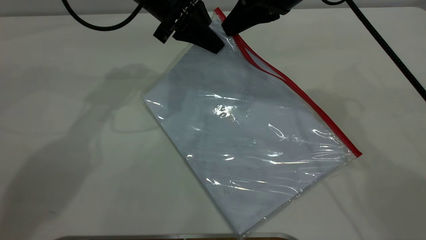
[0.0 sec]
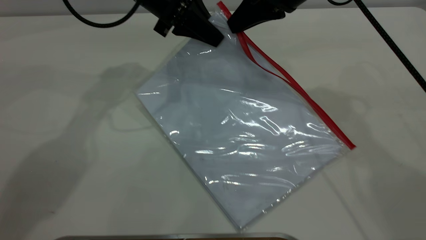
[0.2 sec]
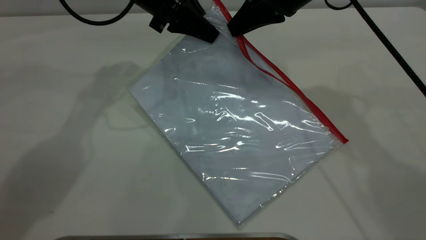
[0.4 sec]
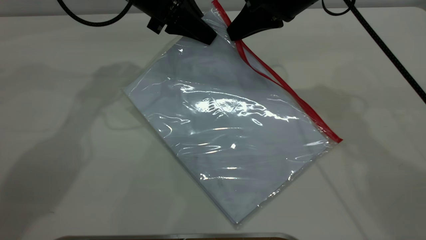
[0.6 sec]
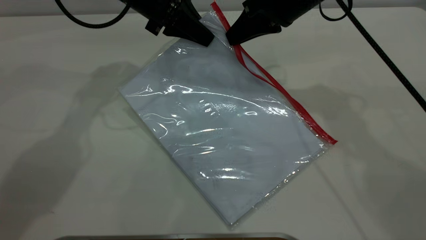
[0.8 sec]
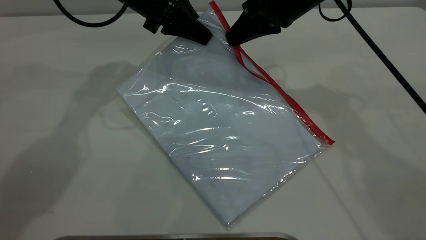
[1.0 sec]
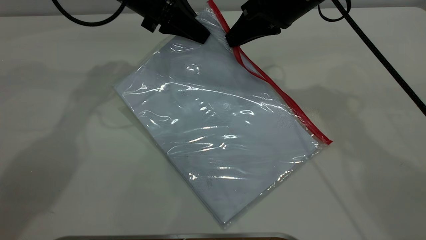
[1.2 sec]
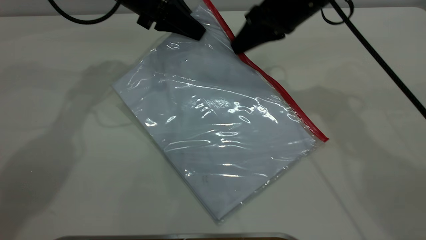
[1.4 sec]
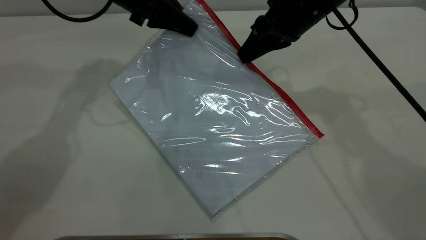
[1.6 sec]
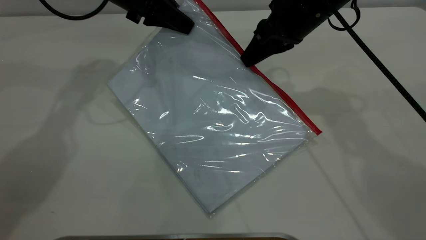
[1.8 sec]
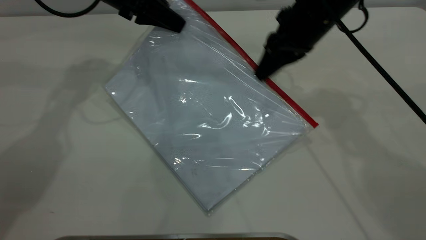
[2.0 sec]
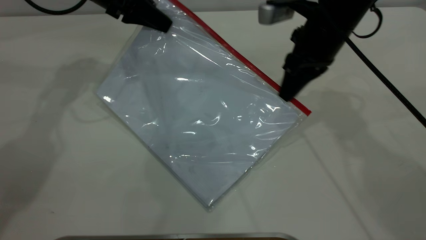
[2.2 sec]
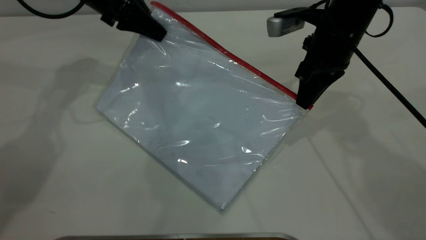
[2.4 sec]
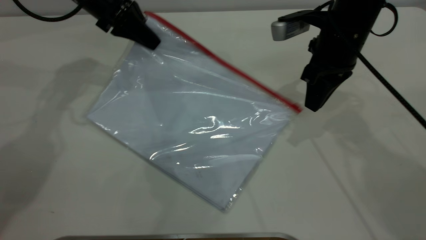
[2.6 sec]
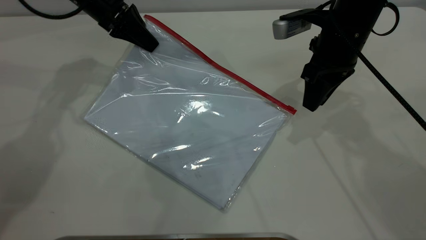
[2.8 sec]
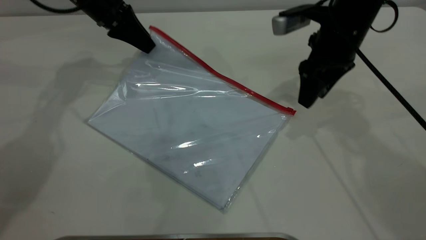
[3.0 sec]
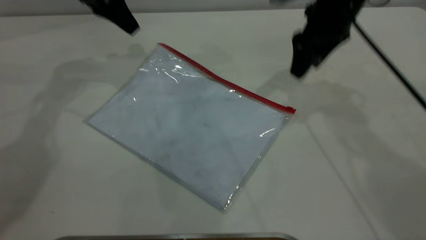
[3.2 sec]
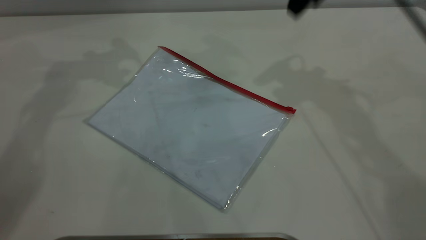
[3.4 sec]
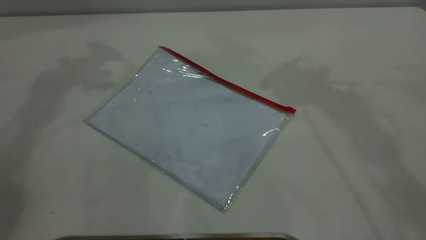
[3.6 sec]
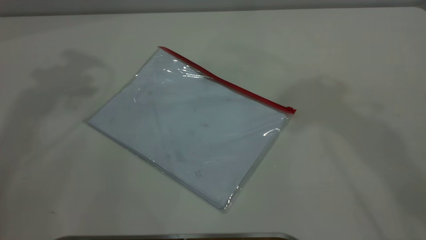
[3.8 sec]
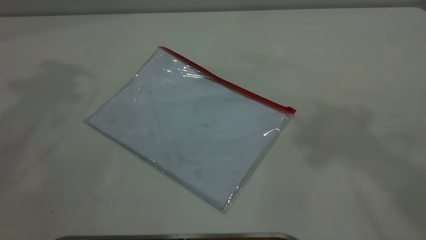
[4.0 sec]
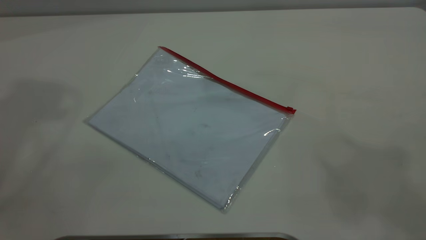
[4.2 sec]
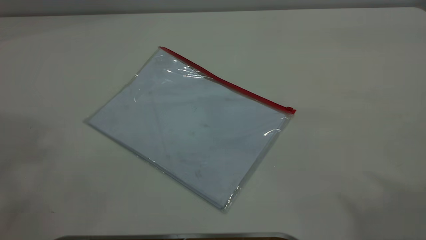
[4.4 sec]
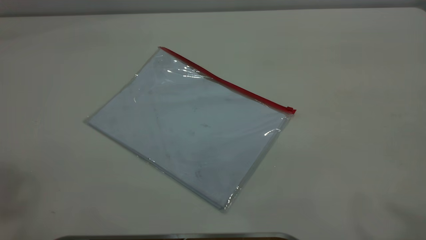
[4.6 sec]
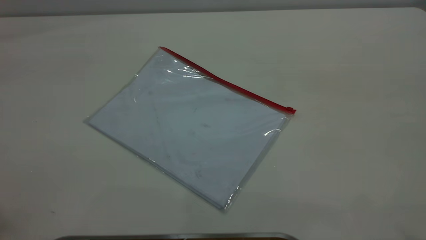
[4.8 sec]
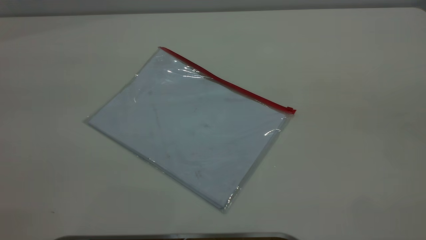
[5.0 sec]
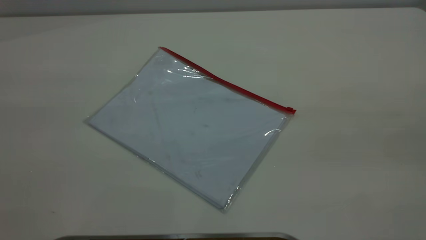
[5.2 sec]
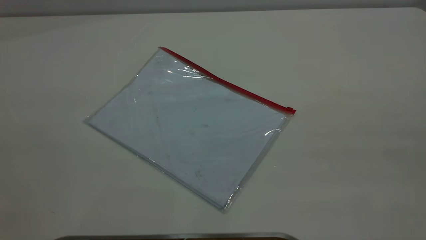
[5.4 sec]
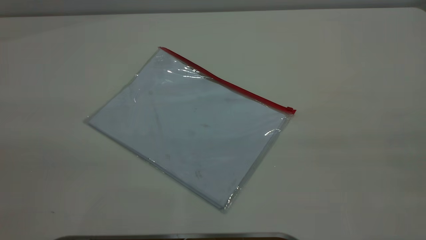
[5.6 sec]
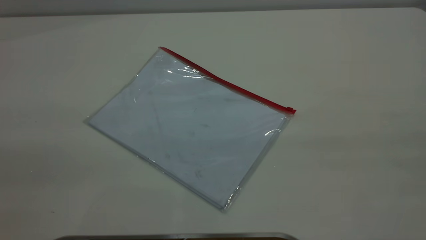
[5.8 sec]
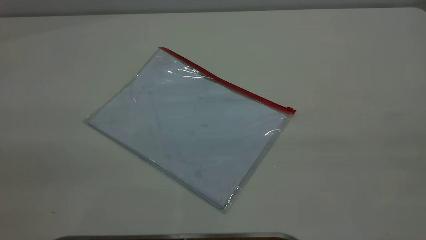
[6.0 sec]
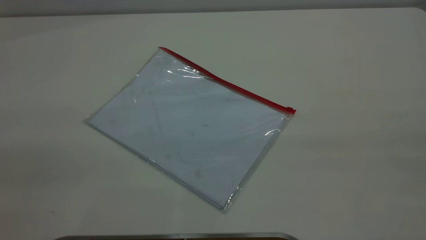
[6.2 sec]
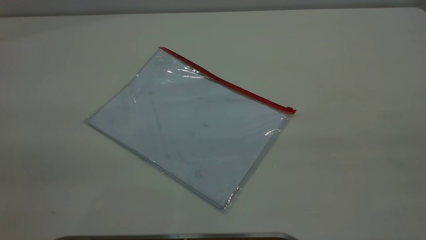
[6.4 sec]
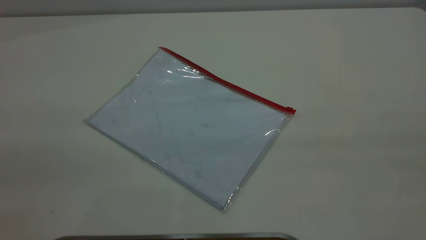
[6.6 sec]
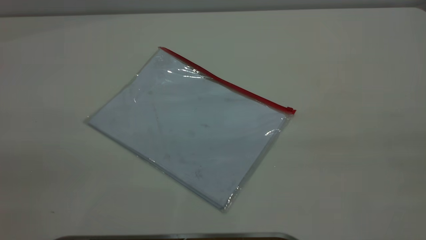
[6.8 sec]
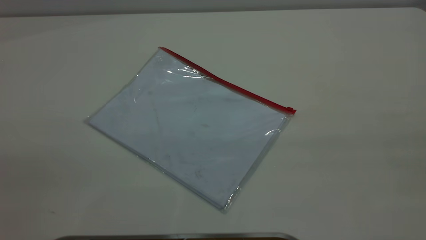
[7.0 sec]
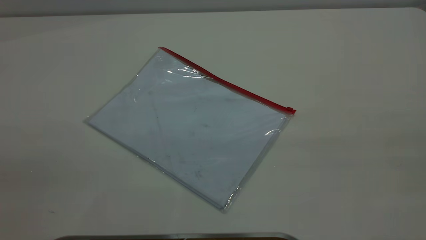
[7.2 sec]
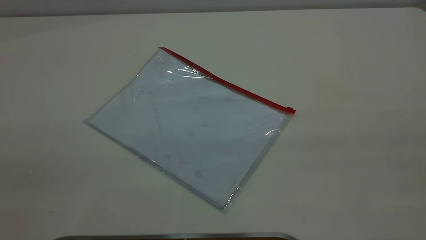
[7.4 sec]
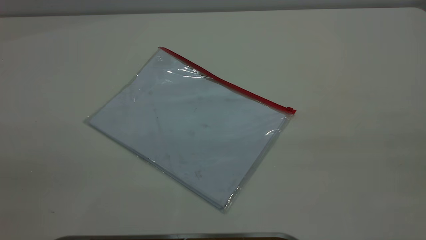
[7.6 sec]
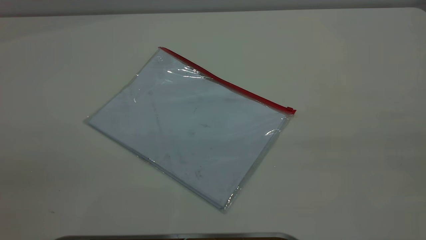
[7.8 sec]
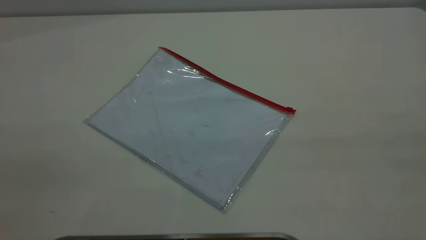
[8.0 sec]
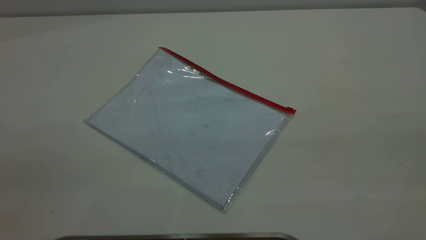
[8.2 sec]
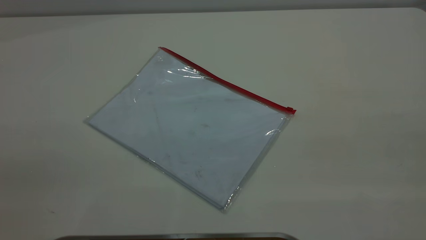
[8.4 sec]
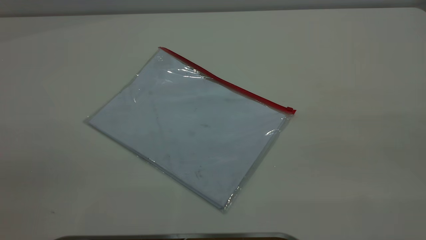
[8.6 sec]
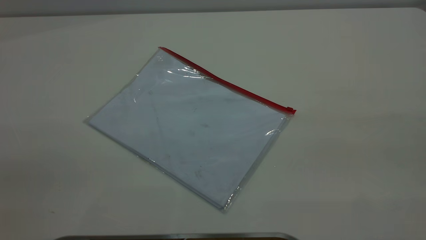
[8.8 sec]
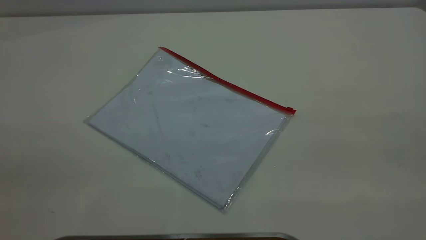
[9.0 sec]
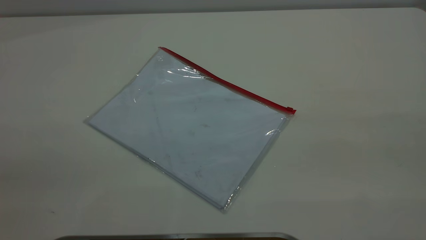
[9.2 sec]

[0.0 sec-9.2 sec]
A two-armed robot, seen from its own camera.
Step, 0.0 sec to 2.4 sec: Pulling up the zipper on the transparent plastic bag with the right gripper to close it.
Step, 2.6 sec to 3.0 sec: Place the transparent plastic bag.
0.0 sec to 1.6 sec: The left gripper is displaced to the left by roughly 5 cm.
1.6 sec to 3.0 sec: The right gripper opens its fingers, while the left gripper travels to the left by roughly 5 cm, and opens its fingers.
3.0 sec to 4.6 sec: Both grippers travel together upward and backward, some 50 cm.
